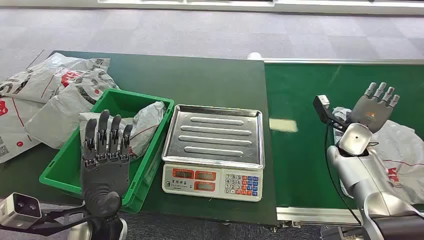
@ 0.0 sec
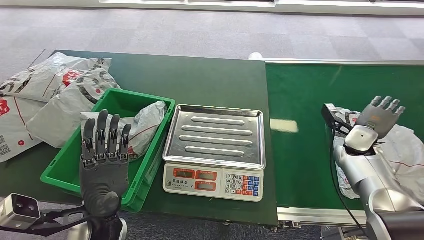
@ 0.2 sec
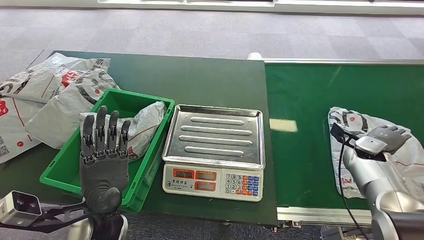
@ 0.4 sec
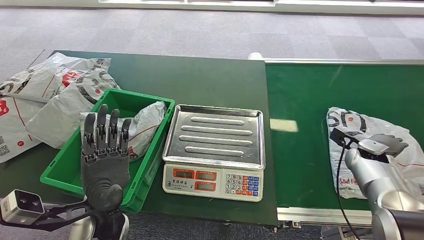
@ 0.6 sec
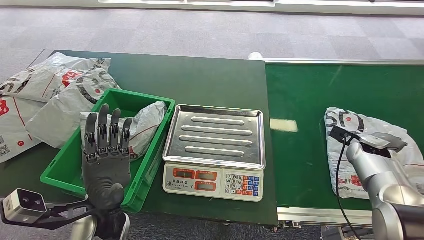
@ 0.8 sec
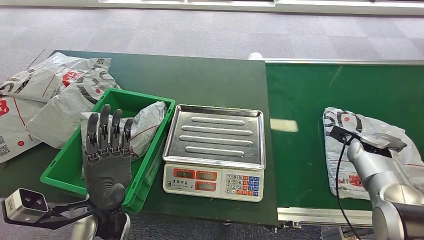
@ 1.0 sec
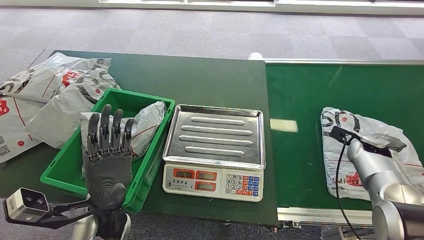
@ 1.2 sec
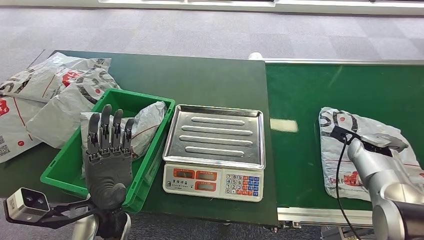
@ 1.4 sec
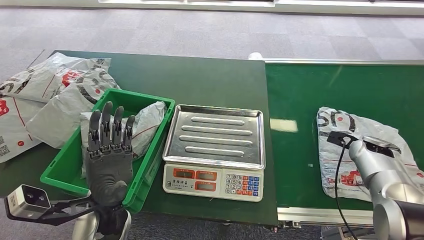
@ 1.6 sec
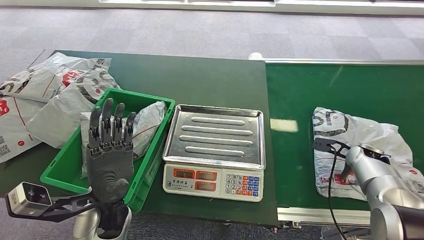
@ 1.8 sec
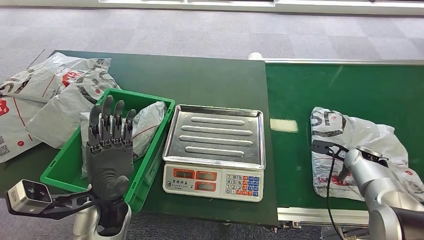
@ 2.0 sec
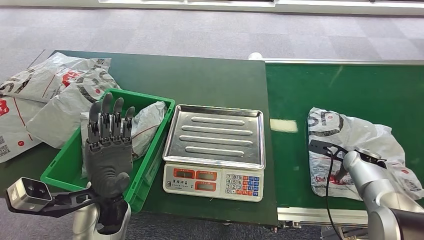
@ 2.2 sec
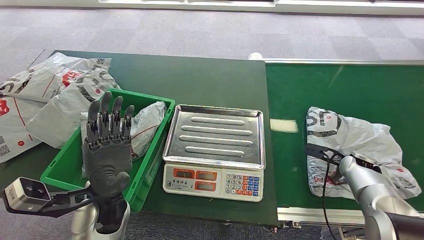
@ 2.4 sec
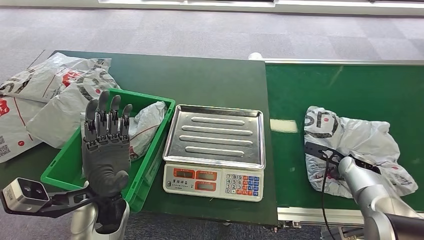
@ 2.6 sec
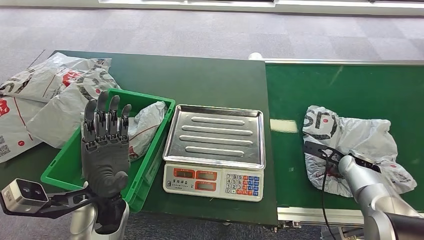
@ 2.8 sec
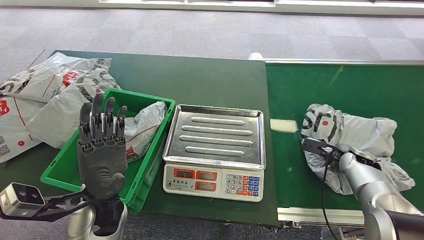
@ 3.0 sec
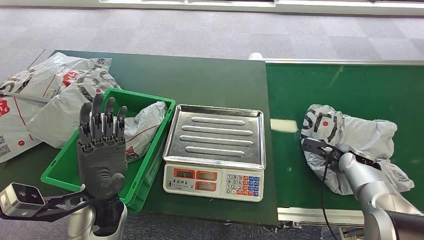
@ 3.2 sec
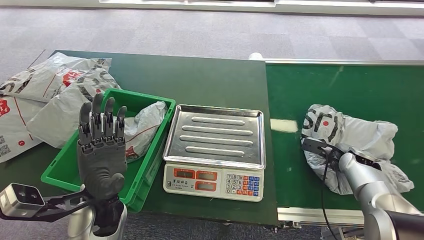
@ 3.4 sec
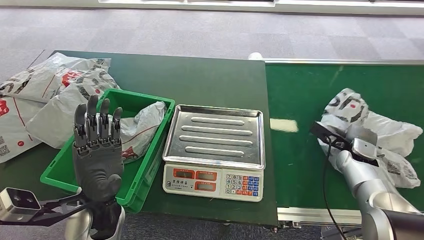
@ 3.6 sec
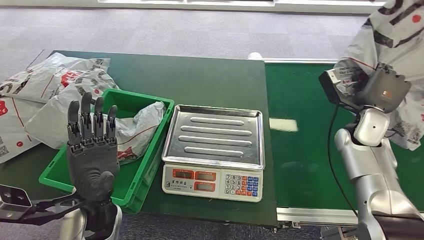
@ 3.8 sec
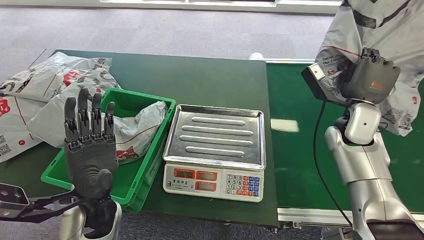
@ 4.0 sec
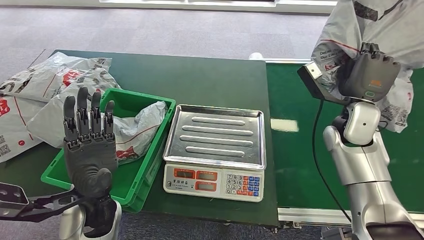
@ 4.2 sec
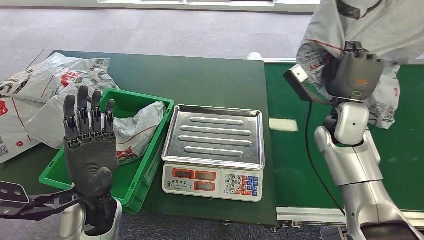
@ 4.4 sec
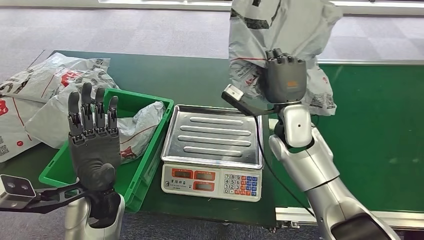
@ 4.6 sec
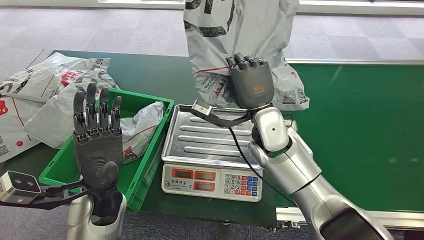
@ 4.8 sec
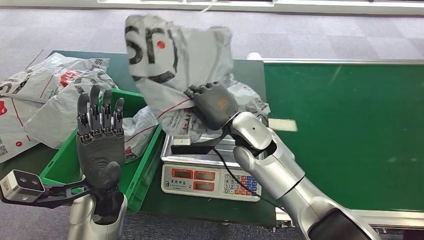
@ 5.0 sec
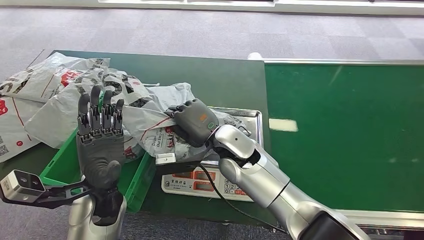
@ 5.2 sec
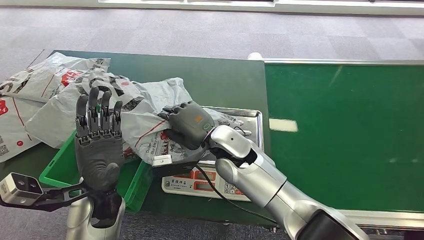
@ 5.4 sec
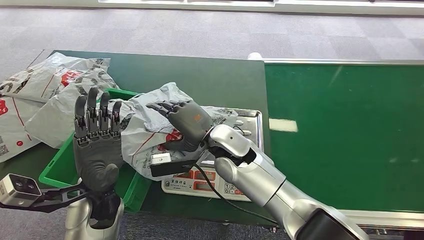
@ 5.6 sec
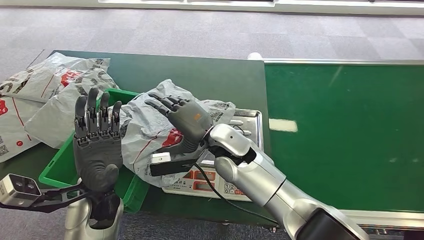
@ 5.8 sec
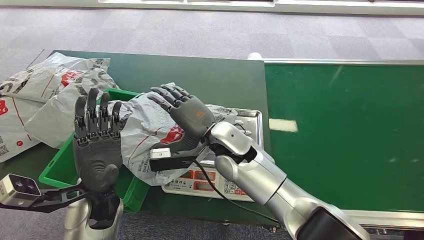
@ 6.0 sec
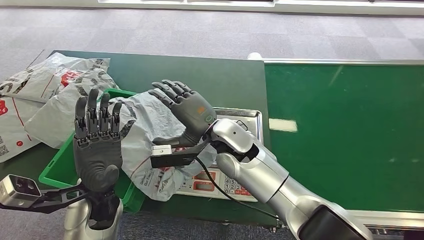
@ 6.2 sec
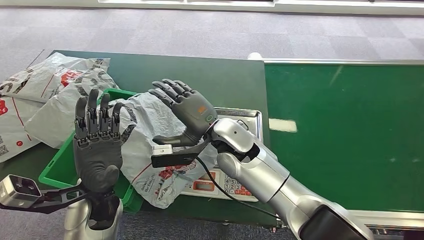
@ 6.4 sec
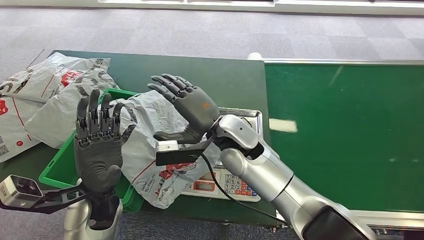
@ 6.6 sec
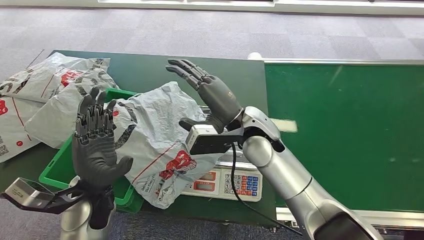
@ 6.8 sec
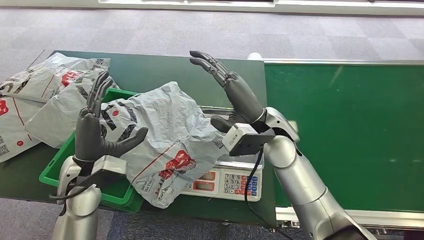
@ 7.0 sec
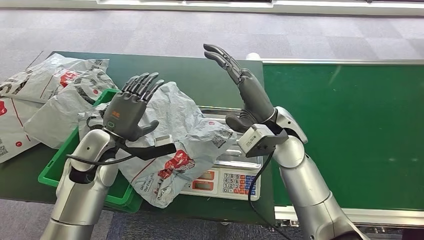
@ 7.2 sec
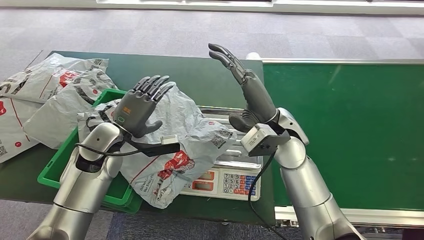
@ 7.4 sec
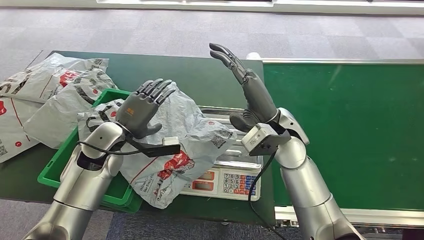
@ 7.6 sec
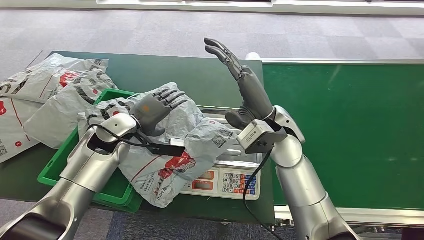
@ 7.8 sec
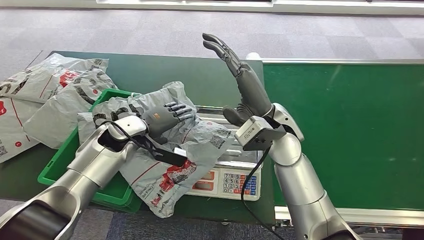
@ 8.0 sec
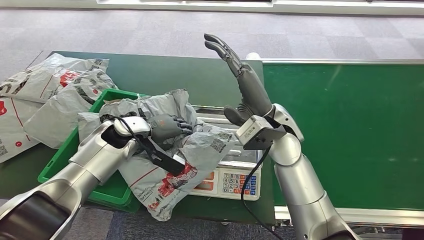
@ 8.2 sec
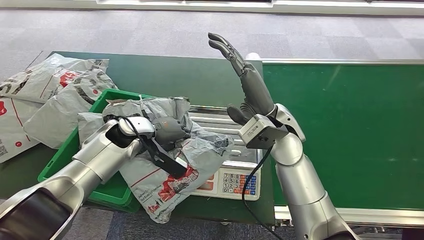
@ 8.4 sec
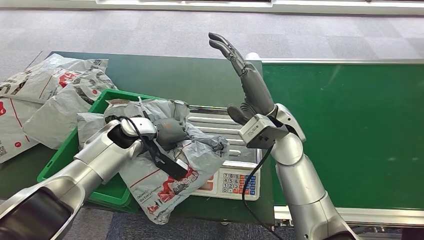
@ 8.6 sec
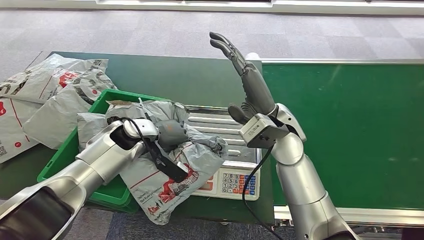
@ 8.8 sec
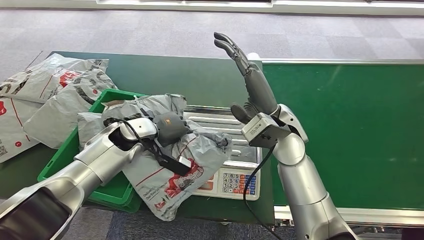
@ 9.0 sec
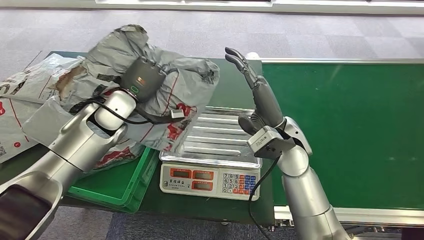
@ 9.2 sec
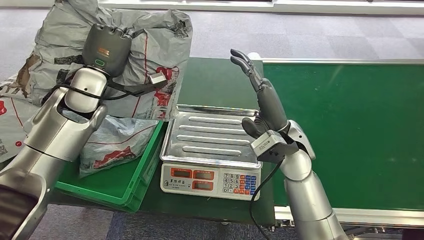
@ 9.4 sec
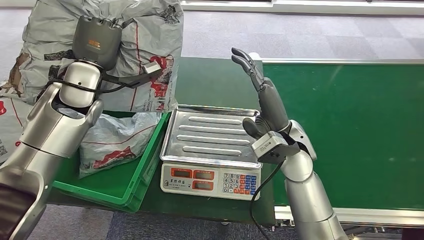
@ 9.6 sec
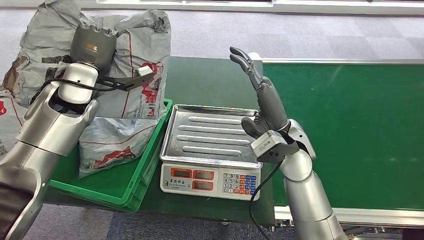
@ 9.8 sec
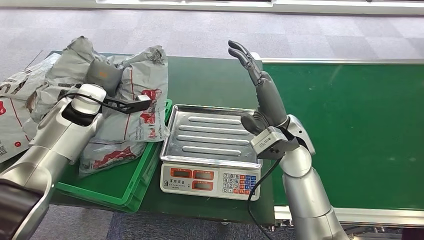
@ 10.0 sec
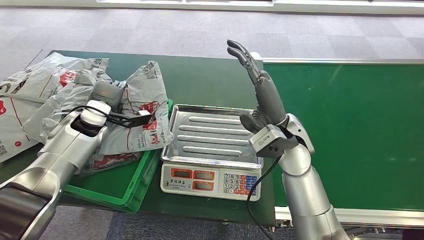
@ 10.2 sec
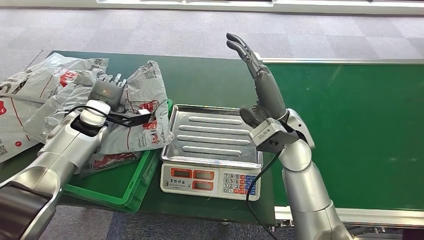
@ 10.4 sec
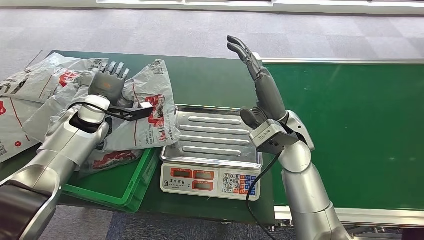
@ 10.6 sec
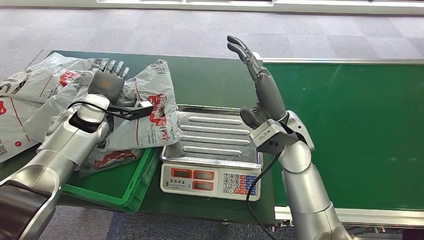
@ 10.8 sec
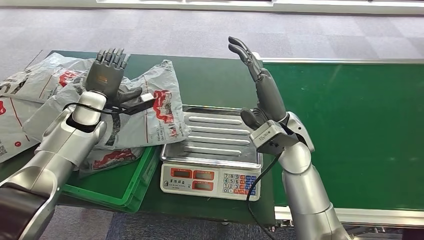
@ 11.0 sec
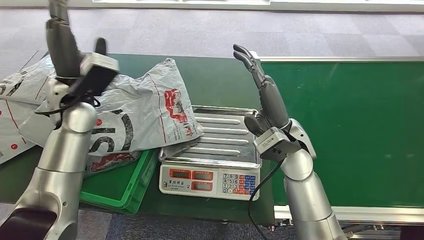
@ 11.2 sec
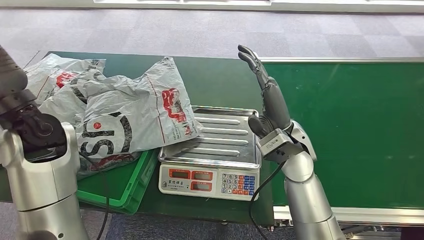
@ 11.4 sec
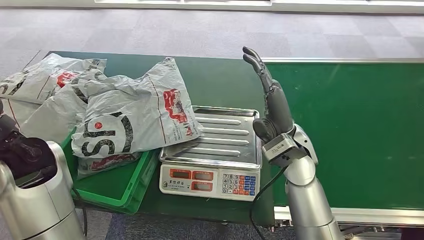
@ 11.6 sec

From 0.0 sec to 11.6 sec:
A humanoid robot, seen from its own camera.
Step, from 0.0 sec to 4.0 sec: Pick up the package from the conveyor belt.
Step, from 4.4 sec to 7.0 sec: Place the package onto the inbound machine.
Step, from 7.2 sec to 9.6 sec: Pick up the package from the inbound machine.
Step, from 9.8 sec to 11.4 sec: Place the package into the parcel locker.
From 1.4 sec to 2.8 sec: The right hand ends up some 5 cm from where it was.
